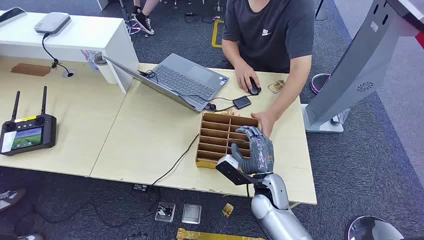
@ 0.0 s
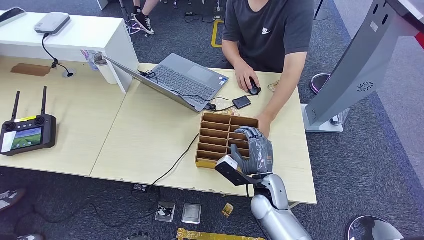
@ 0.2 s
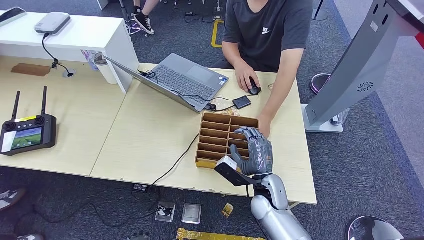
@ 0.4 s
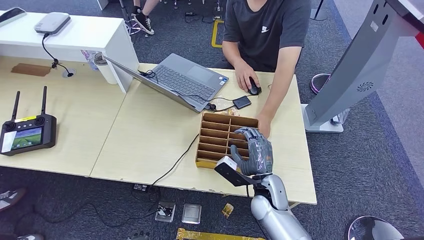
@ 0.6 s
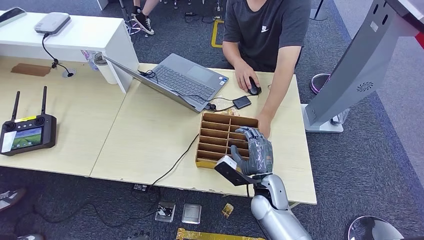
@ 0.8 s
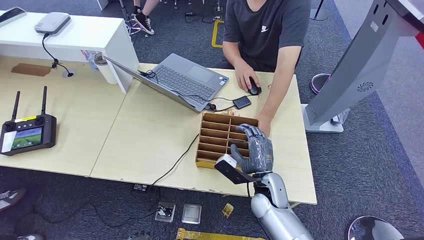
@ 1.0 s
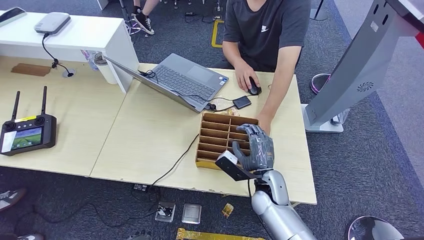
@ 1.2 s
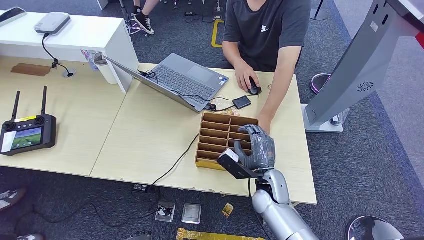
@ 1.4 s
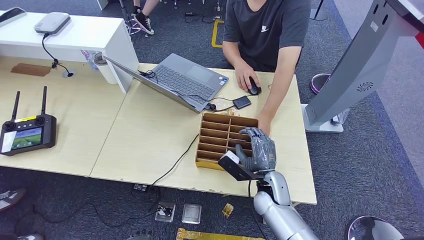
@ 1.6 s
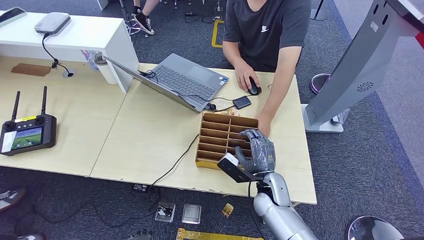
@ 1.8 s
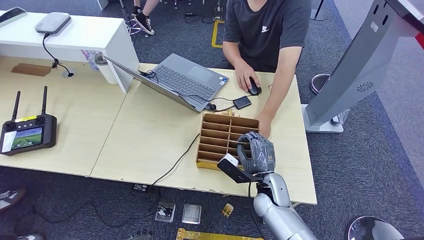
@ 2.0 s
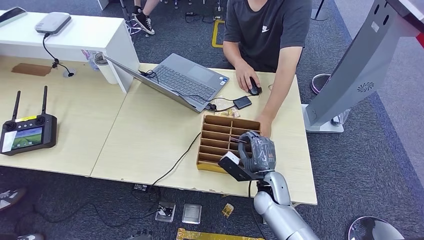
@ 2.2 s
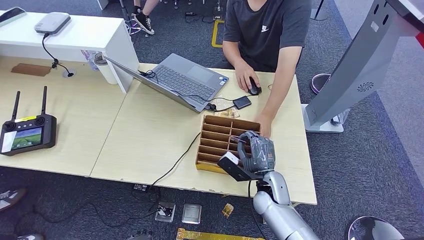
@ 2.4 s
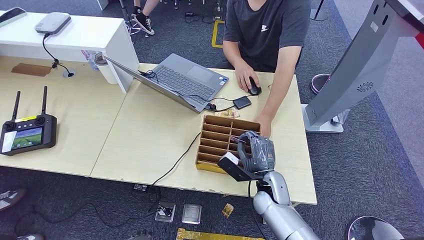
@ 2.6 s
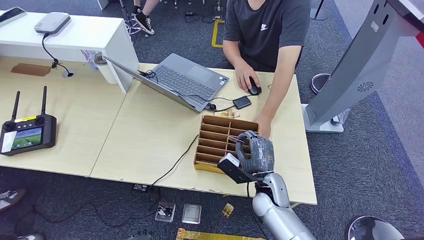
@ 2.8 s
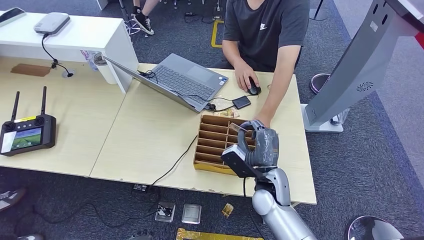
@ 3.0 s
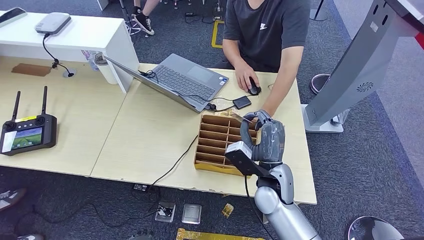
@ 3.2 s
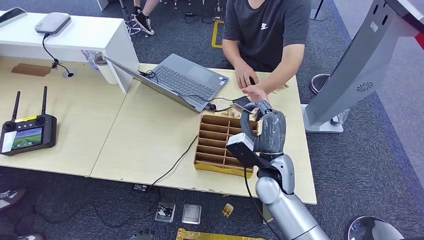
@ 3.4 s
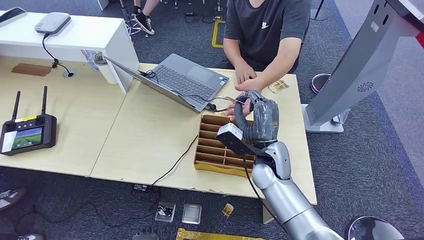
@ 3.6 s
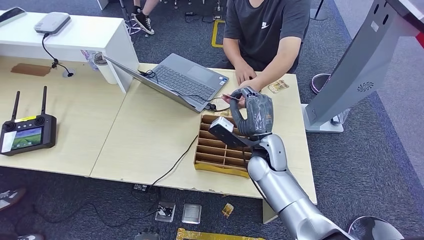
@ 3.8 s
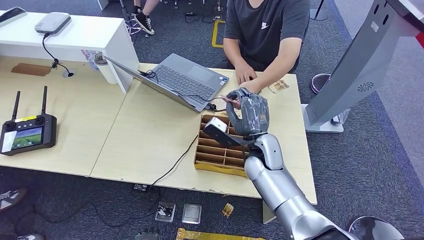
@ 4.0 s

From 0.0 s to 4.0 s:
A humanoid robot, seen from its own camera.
Step, from 0.0 s to 2.6 s: Pick up the key card from the card box.
Step, from 2.8 s to 4.0 s: Hand the key card to the target.
From 1.4 s to 2.6 s: The hands move only a little.
From 2.6 s to 4.0 s: The right hand goes approximately 10 cm upward and forward.
